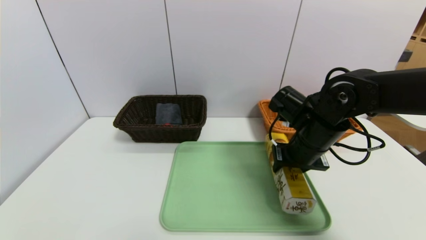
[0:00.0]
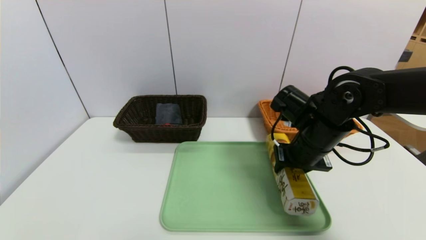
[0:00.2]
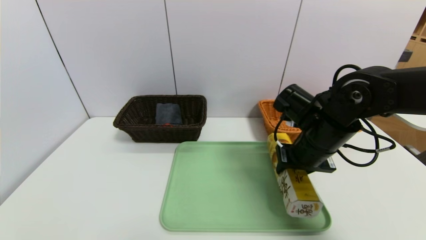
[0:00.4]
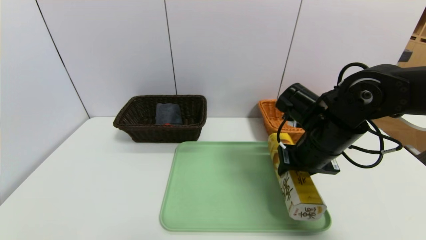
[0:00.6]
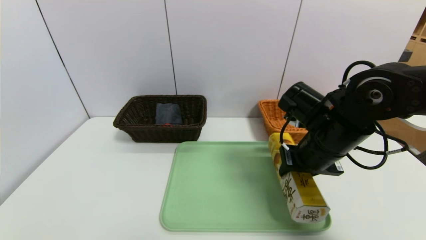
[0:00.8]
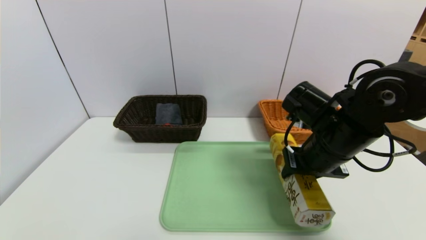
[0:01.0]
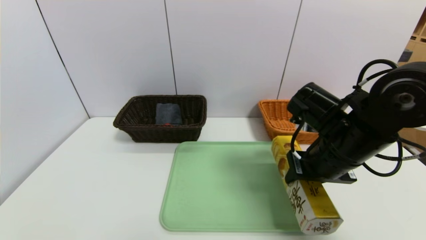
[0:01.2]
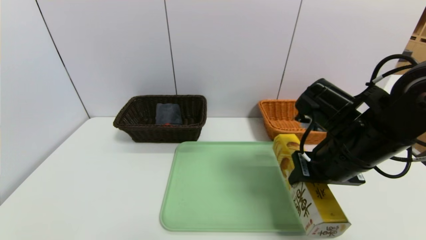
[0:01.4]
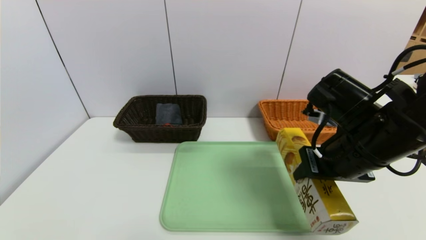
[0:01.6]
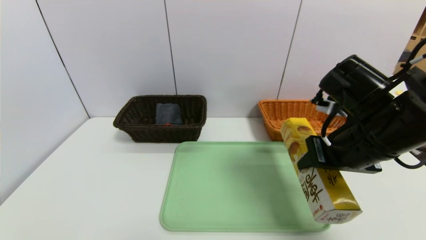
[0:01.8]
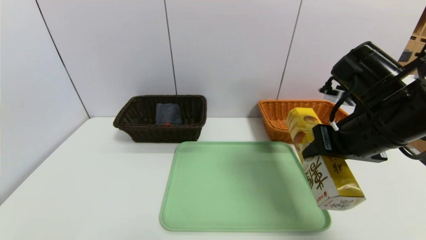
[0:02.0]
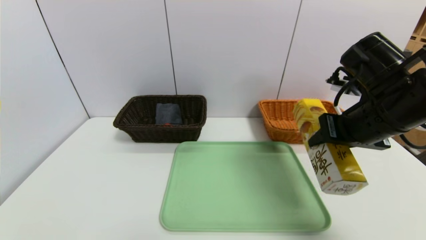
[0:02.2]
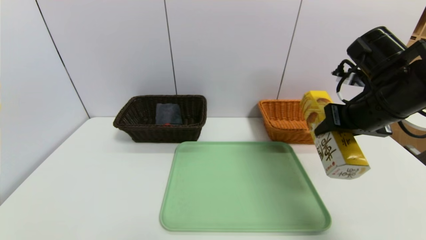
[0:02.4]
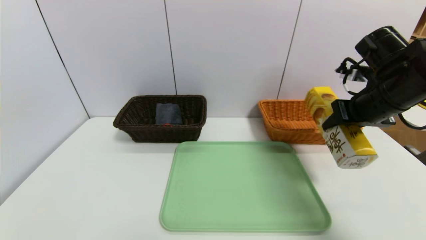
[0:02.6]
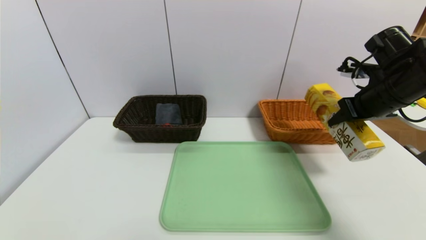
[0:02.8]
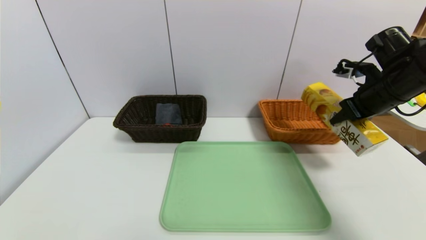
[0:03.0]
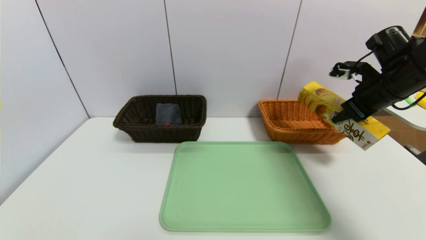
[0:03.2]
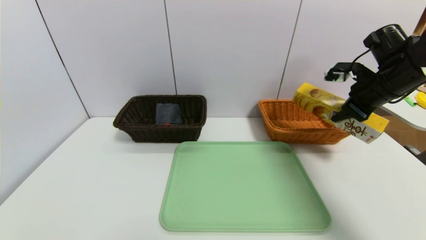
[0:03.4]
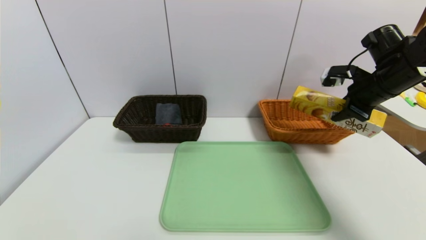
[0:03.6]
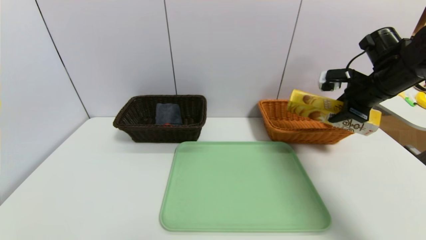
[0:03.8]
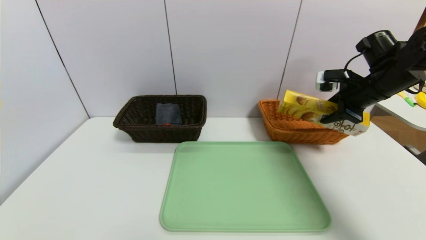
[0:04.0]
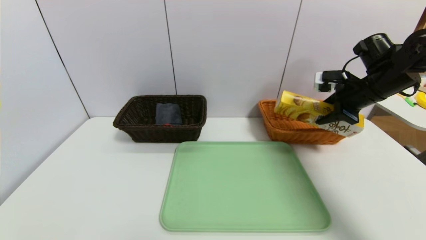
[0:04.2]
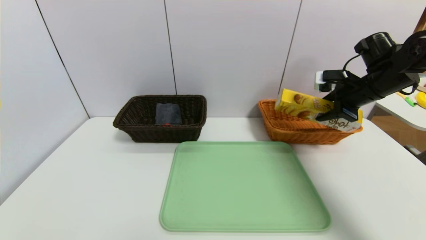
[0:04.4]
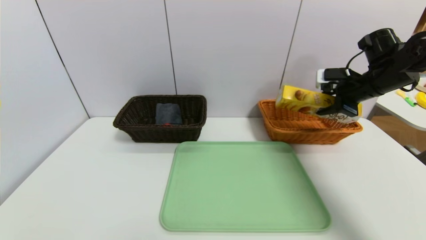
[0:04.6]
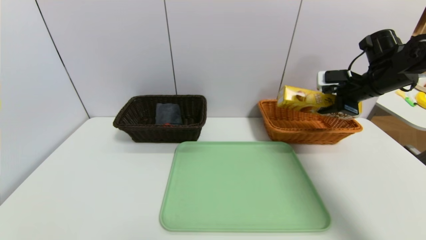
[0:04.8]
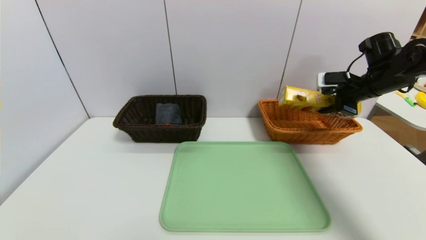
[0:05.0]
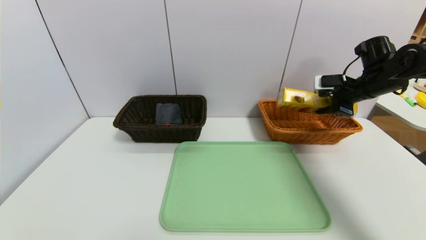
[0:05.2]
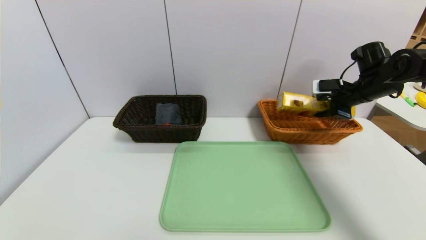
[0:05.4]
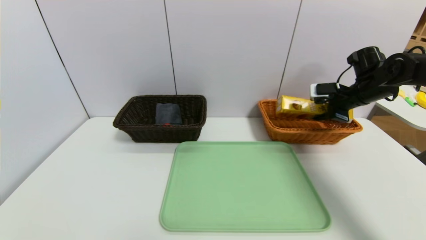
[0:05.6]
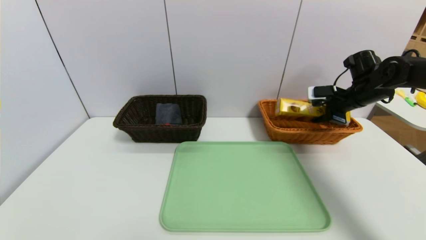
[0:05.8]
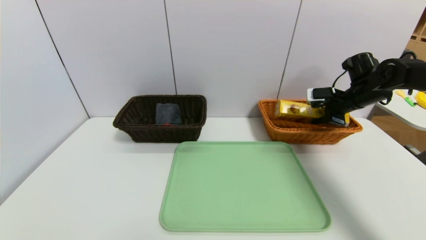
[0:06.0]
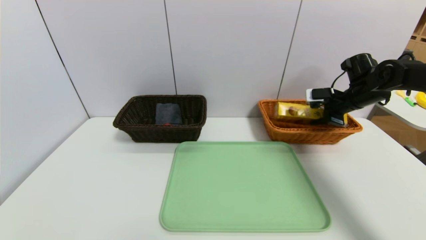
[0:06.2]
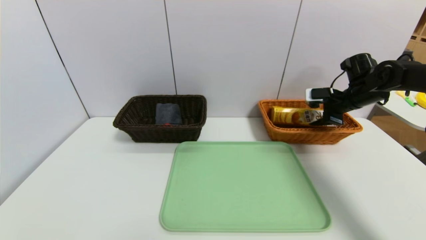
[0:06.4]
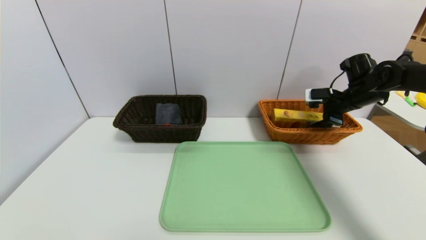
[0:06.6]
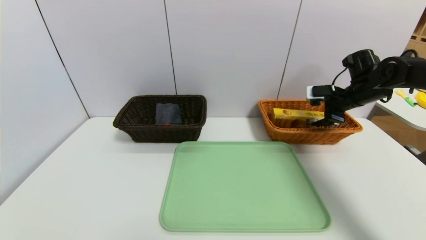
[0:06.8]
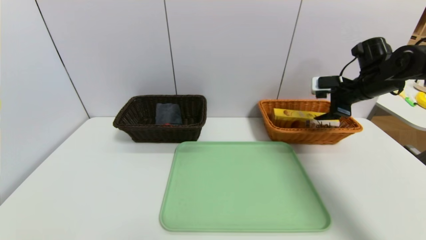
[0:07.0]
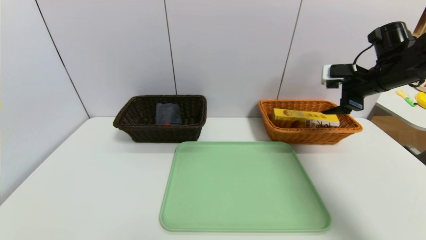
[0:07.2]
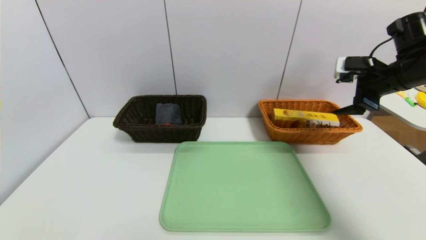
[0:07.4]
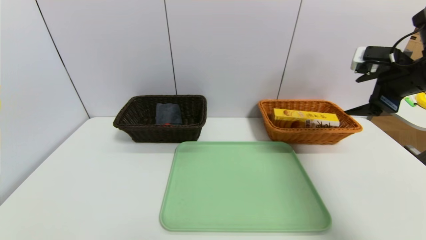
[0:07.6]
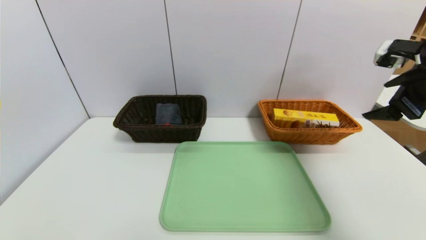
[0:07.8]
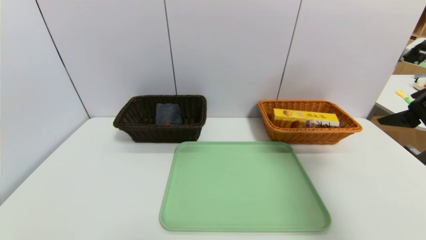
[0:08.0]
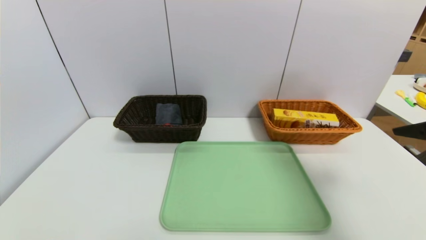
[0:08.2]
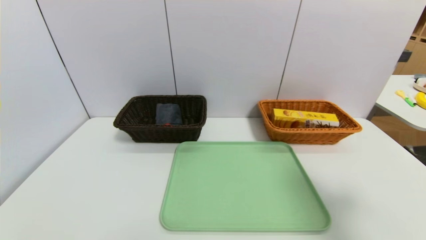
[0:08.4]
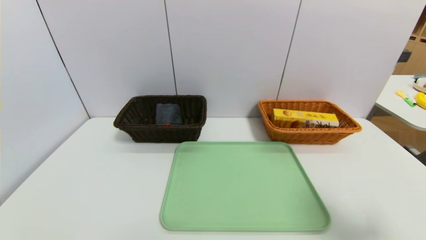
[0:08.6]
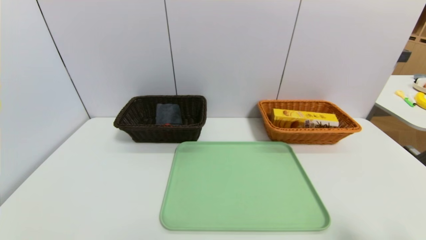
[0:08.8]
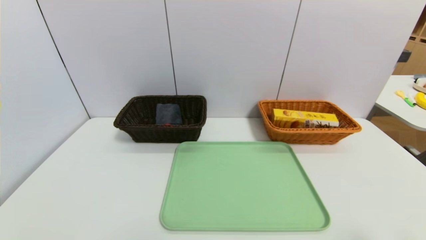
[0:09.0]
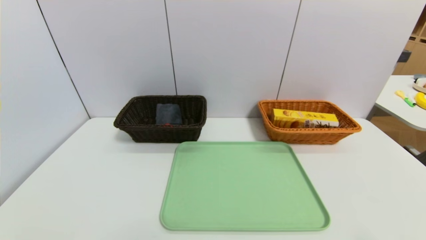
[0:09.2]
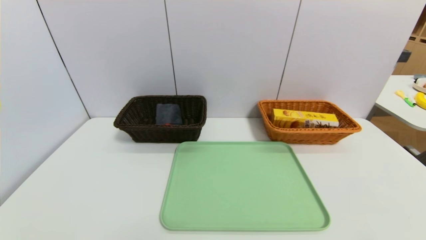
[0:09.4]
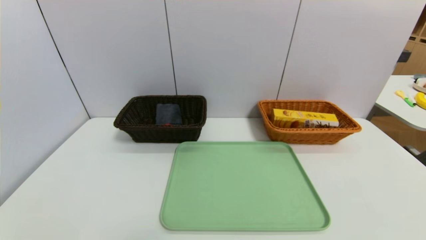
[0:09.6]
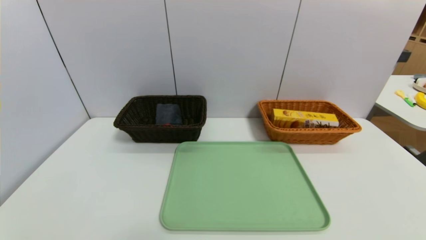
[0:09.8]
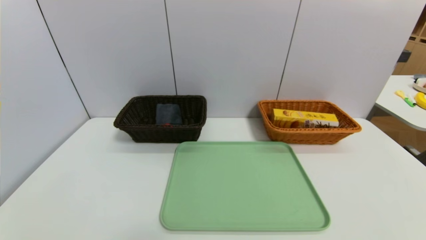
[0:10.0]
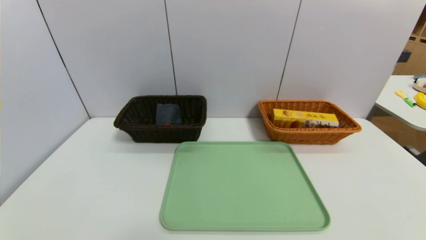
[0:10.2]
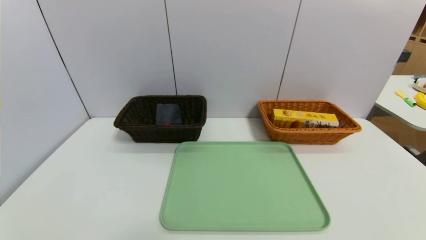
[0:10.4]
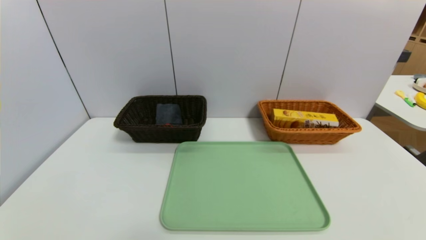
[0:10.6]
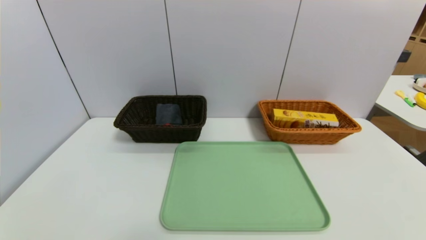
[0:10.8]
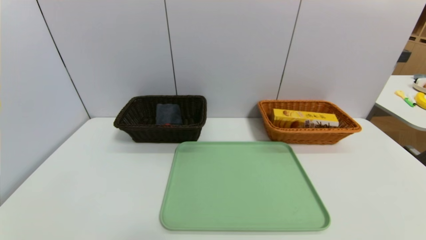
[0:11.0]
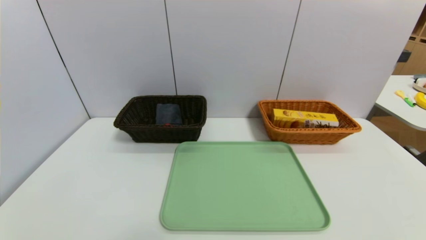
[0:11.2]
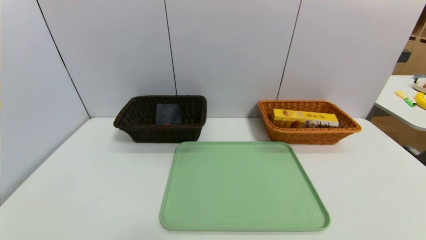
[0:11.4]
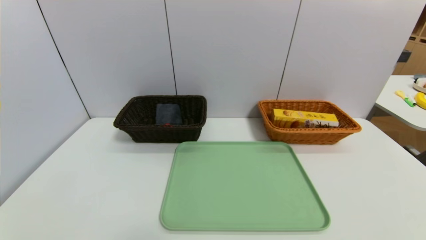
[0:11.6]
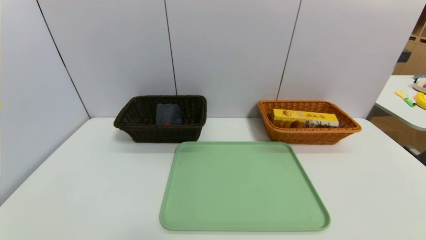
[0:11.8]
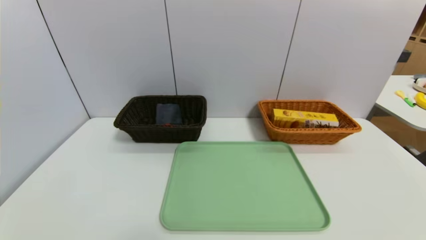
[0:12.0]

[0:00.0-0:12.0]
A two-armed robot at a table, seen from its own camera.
Task of the whole recording: place the food in the right basket with the right gripper, and place the non food items in the left basket with the left gripper.
Step, 0:00.0 to 0:06.6: Grasp the potato chips and put it in the right basket.
0:00.0 to 0:01.6: The right gripper goes about 10 cm backward and upward.
0:01.6 to 0:03.0: The right gripper travels to the right and forward by approximately 15 cm.
0:04.4 to 0:06.0: The right gripper shifts approximately 5 cm forward and downward.
0:06.0 to 0:07.6: The right gripper moves backward and upward, about 15 cm, and opens up.
0:07.6 to 0:09.0: The right gripper moves backward and downward, some 30 cm.
0:10.4 to 0:12.0: The two grippers keep their place.

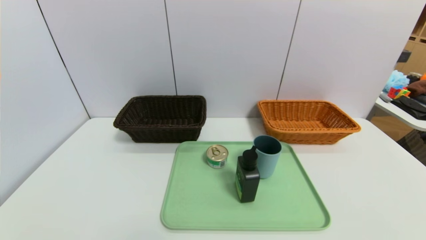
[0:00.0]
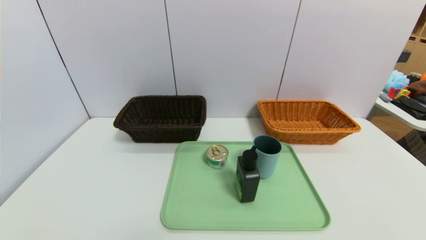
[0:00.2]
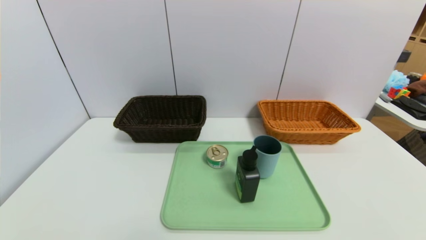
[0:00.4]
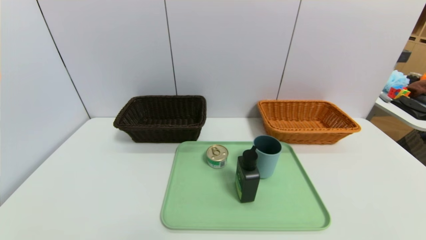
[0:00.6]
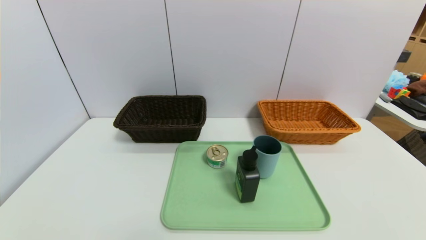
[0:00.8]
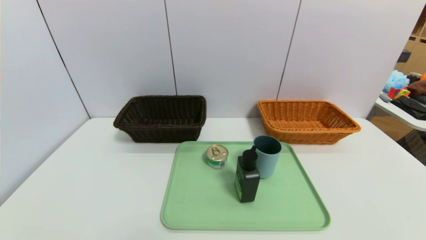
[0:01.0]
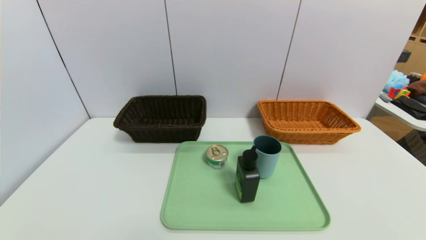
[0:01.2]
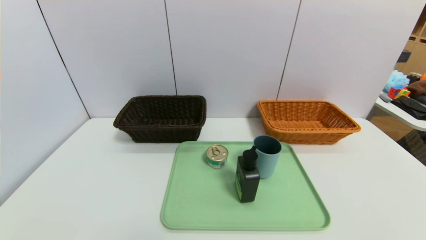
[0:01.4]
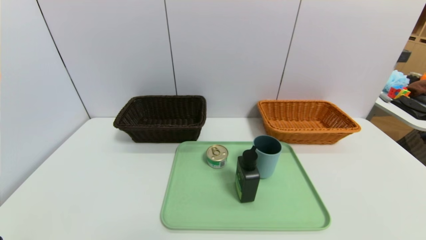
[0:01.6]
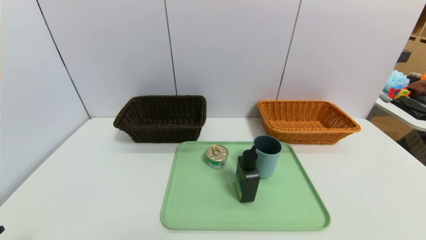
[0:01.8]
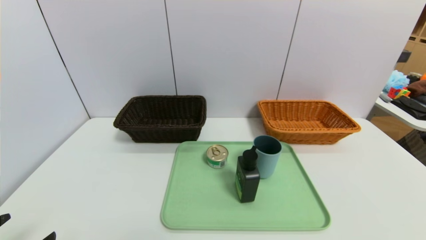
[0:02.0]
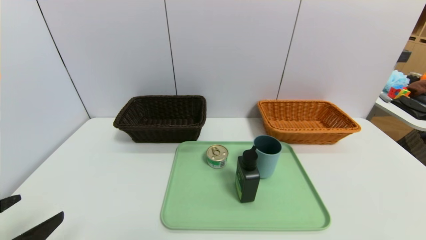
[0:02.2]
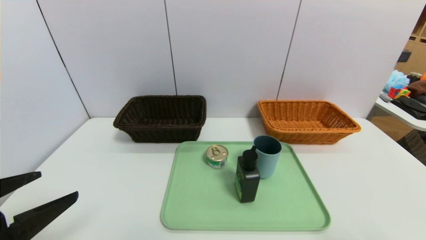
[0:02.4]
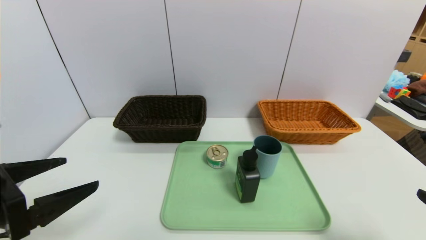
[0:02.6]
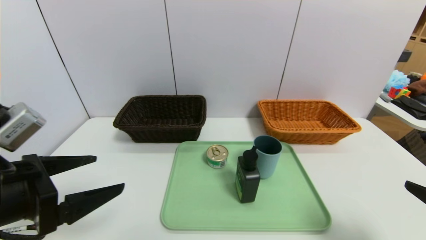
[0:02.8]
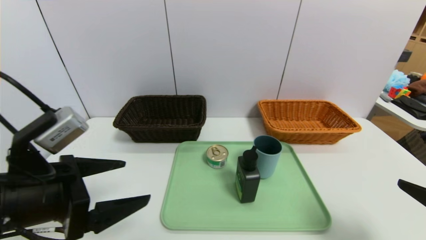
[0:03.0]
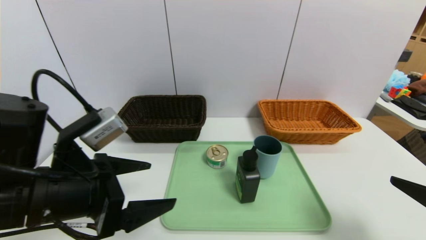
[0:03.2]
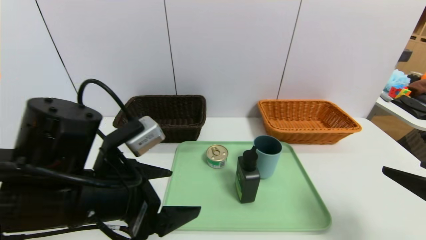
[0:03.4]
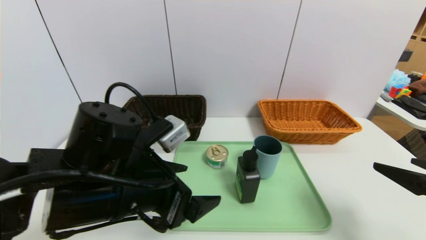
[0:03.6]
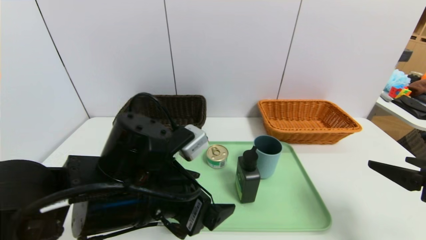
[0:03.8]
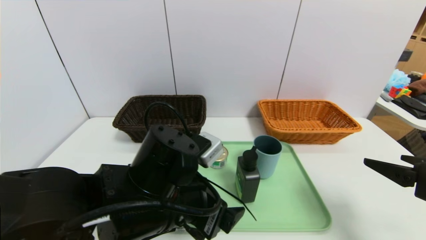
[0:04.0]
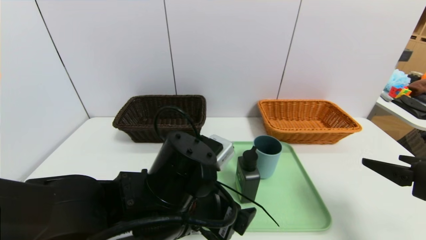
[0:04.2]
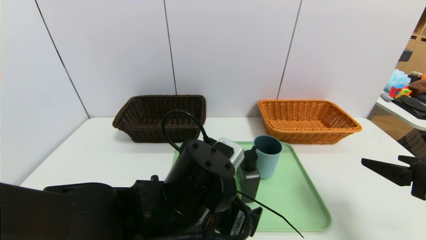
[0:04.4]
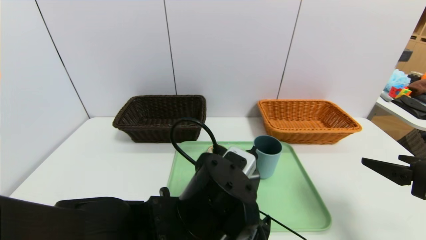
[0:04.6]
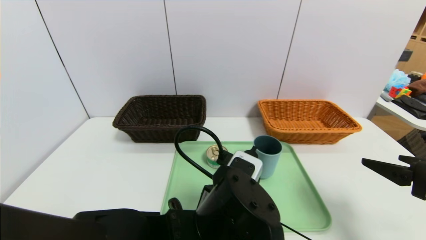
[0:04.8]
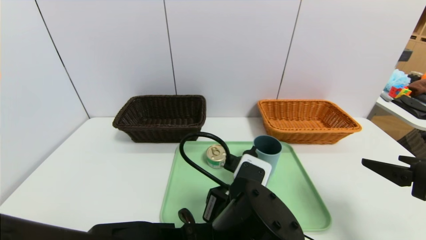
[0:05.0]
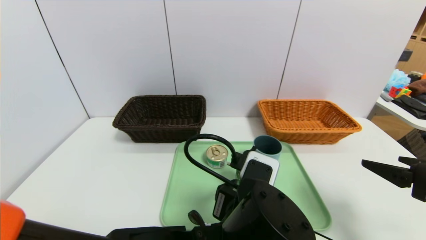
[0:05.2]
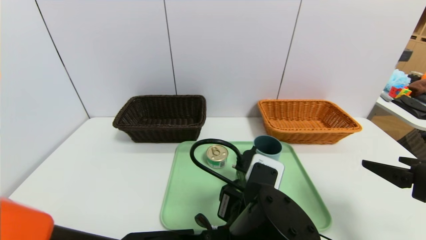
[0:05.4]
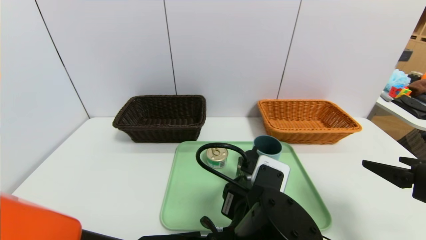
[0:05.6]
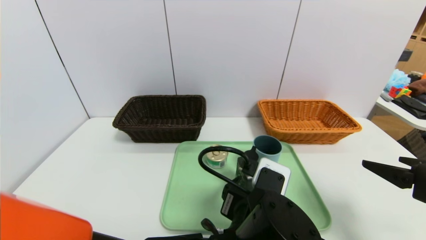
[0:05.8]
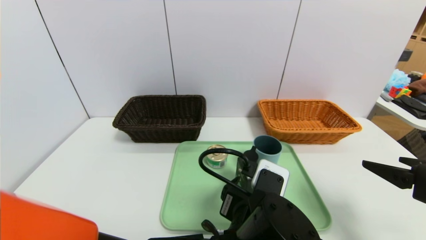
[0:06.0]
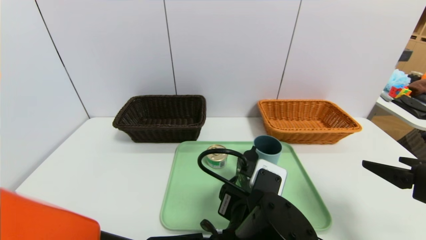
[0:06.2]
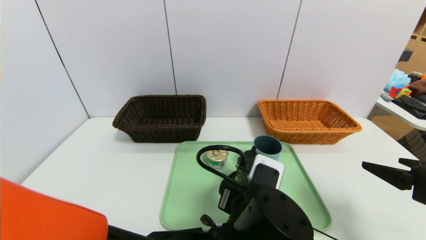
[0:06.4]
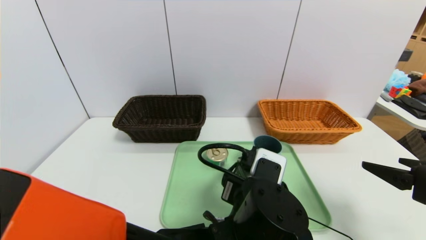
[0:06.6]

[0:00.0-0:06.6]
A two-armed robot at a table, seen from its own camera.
Task of the whole recording: place the food in the right basket with the right gripper, and place the non food items in the left basket with the left gripper.
0:01.6 to 0:03.2: The left gripper heads forward, to the right and upward, covering approximately 20 cm. The right gripper shifts roughly 15 cm upward and forward.
0:03.2 to 0:05.0: The left gripper goes approximately 20 cm to the right.
0:05.0 to 0:06.6: The left gripper changes place by some 5 cm.
